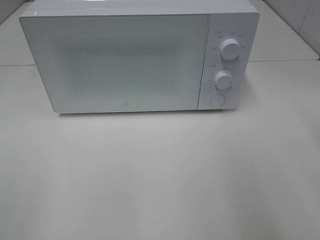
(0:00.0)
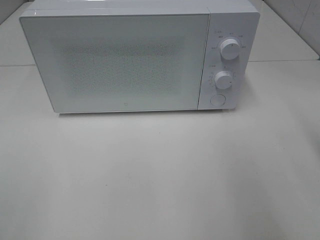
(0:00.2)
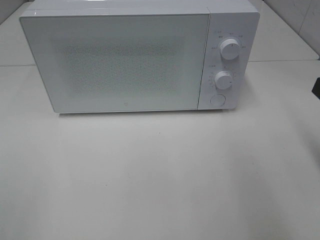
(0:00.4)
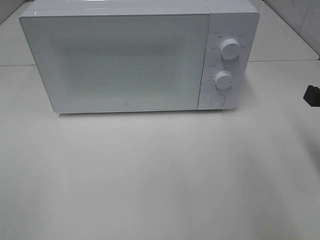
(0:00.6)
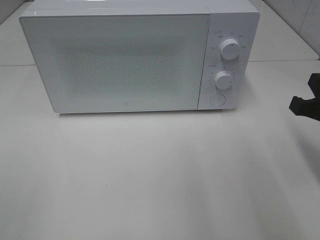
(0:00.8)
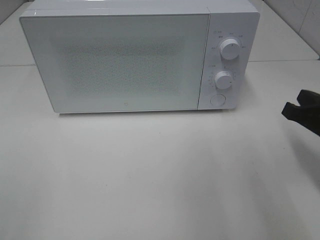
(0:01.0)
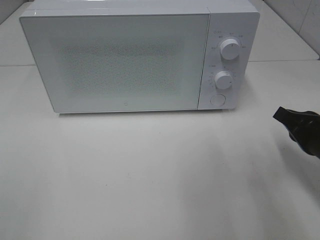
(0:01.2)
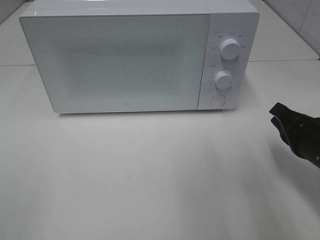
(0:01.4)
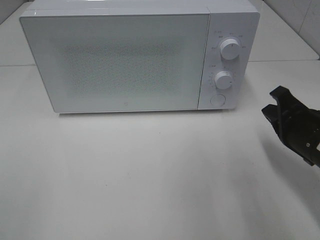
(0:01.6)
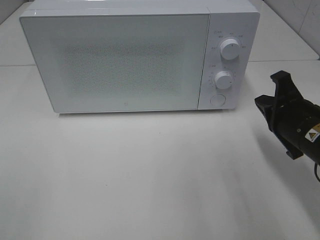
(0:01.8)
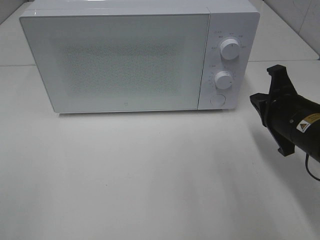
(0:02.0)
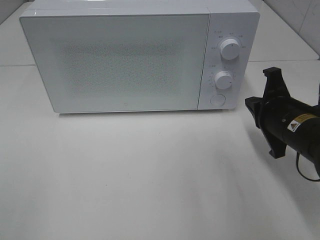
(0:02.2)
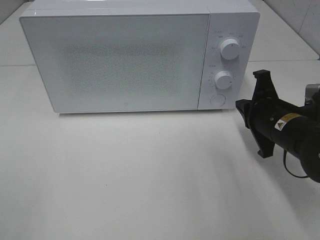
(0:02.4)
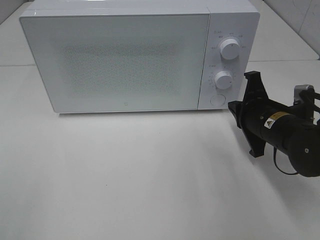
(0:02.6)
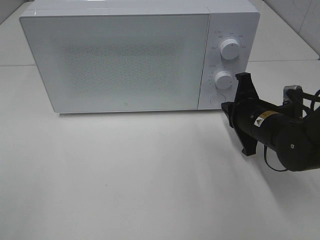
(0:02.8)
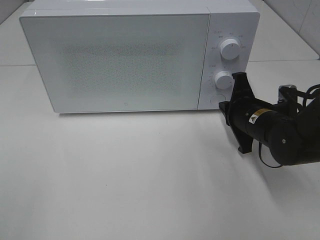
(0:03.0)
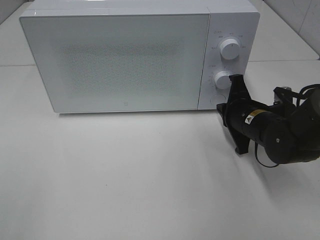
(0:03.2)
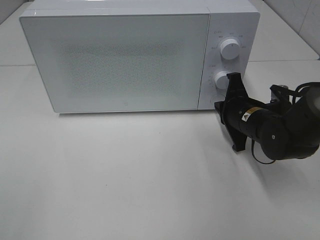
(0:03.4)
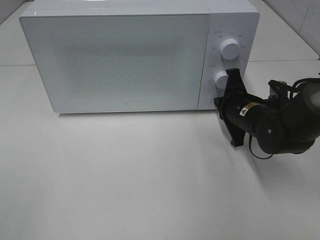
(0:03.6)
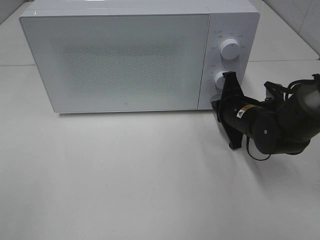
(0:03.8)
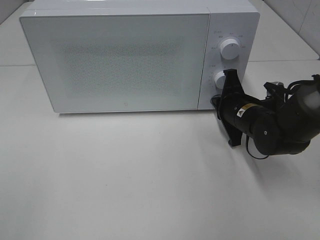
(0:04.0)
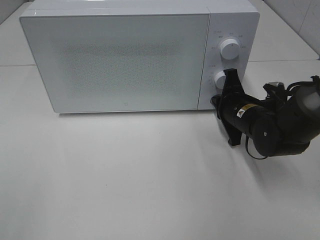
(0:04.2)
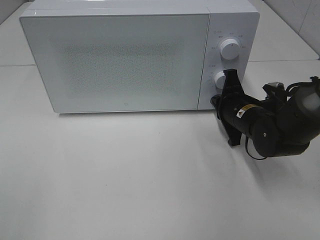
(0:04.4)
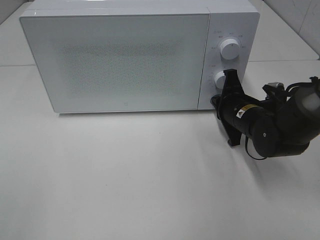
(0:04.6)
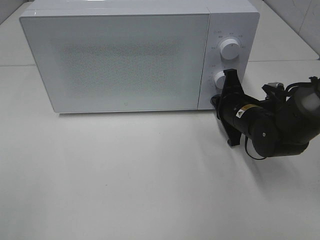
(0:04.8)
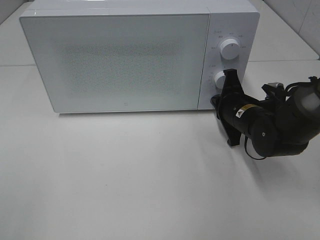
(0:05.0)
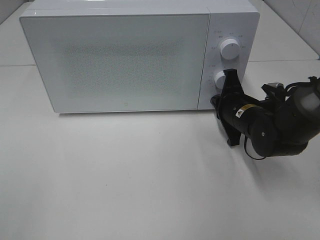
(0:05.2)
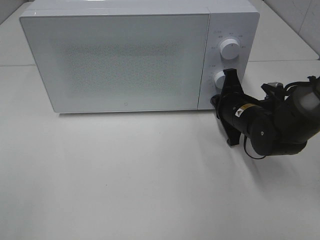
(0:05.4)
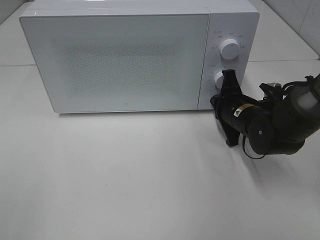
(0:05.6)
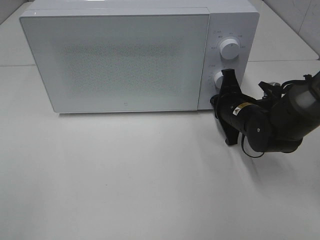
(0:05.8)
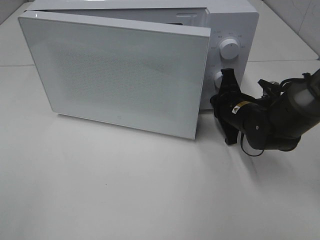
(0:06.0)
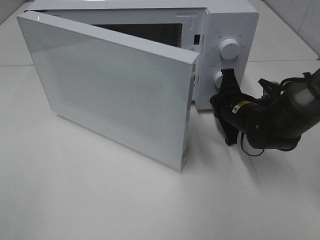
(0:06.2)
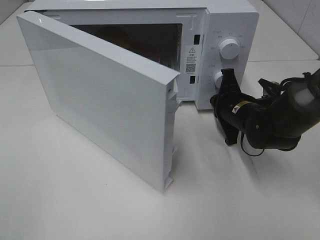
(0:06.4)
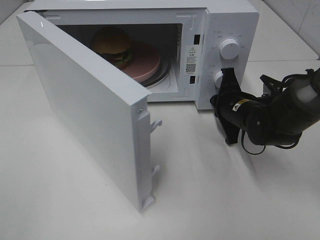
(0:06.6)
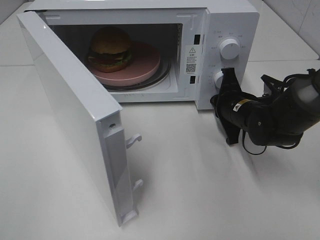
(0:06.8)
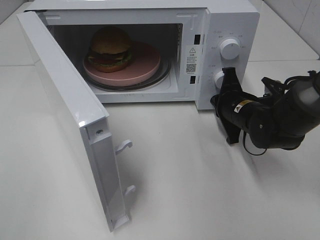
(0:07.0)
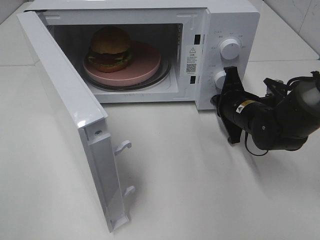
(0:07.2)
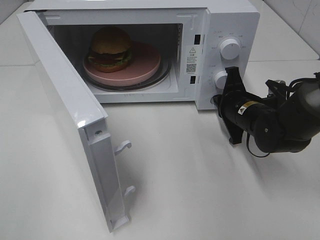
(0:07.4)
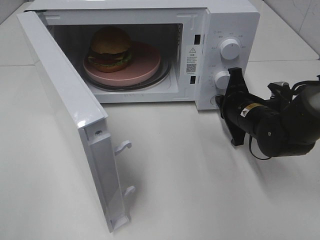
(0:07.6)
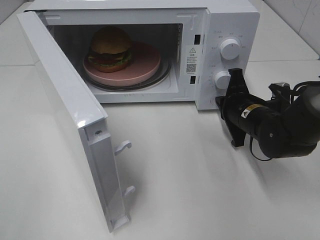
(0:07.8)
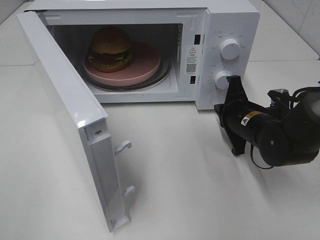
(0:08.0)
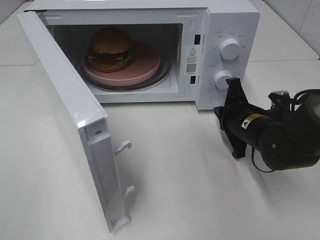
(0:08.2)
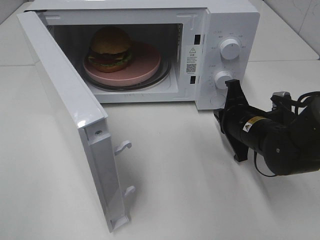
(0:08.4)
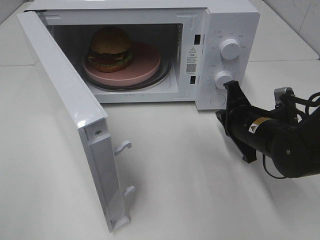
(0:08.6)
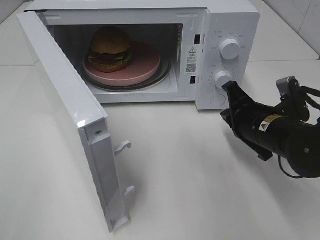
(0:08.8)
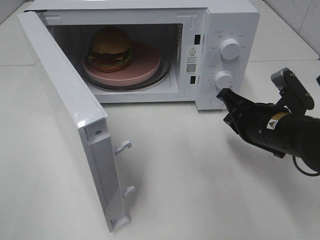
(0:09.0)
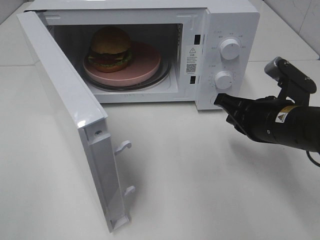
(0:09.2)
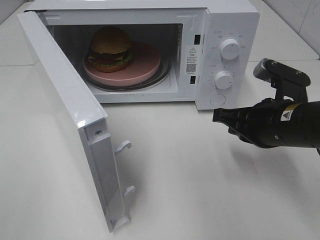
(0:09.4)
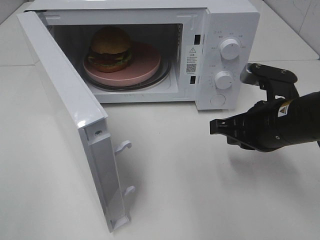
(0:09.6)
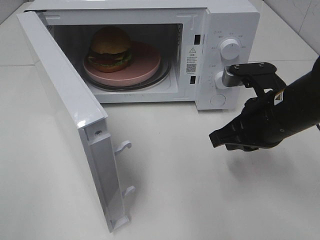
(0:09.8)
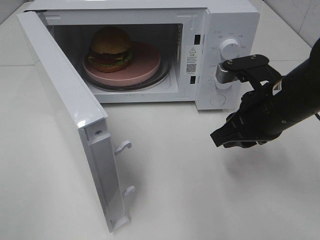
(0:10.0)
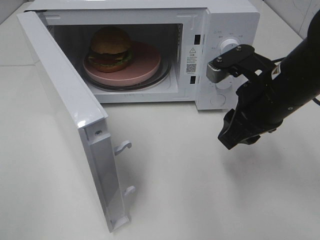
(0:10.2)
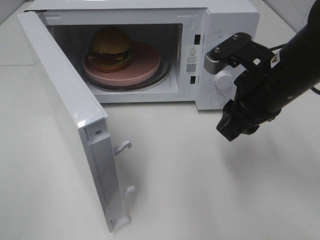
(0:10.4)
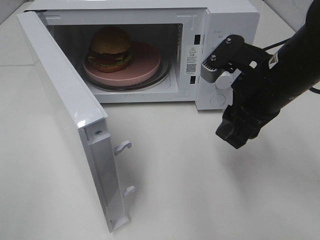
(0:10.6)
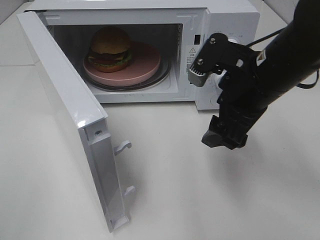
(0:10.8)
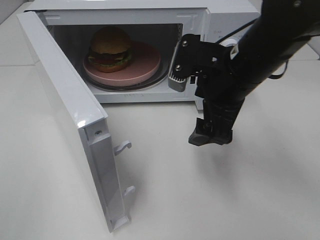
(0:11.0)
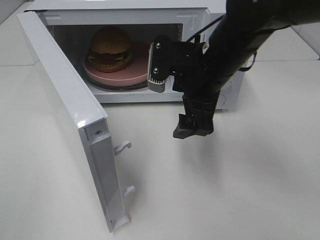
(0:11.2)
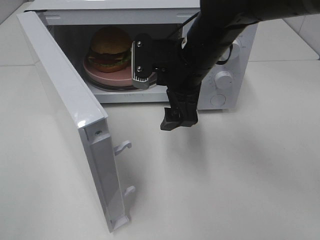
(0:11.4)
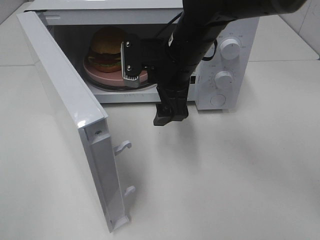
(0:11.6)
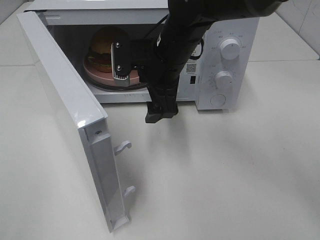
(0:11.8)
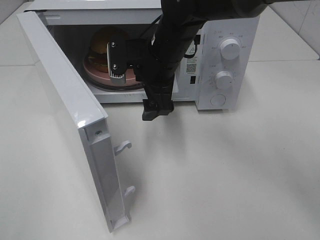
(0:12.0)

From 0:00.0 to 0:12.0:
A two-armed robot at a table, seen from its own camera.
Task of the whole recording: Heat the burger.
Step, from 0:00.0 to 0:07.8: Right hand: press the switch.
From 0:00.0 to 0:01.6: The right gripper travels downward and forward by roughly 15 cm.
From 0:01.6 to 0:03.0: The right gripper moves forward and to the left, roughly 10 cm.
From 0:03.0 to 0:06.0: There are only small adjustments of the grippers.
From 0:07.6 to 0:09.0: The right gripper goes roughly 10 cm backward.
From 0:09.0 to 0:10.4: The right gripper heads upward, covering approximately 10 cm, and opens up.
From 0:10.4 to 0:12.0: The right gripper is displaced to the left and forward by approximately 20 cm, and opens.

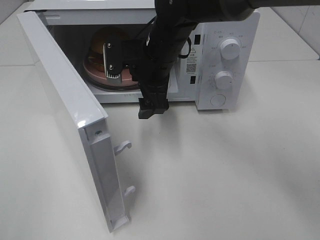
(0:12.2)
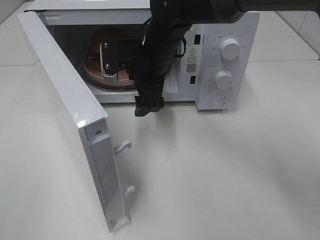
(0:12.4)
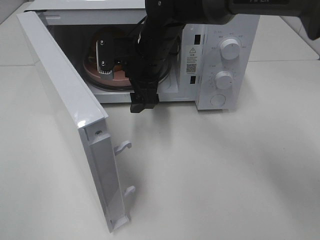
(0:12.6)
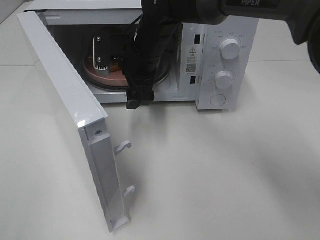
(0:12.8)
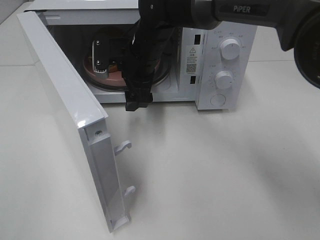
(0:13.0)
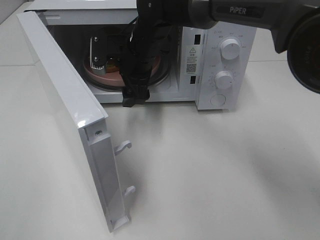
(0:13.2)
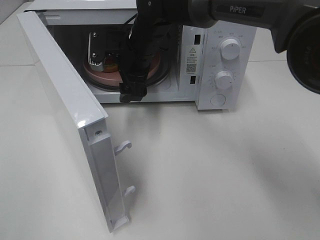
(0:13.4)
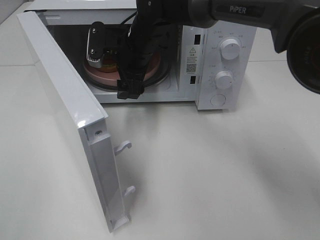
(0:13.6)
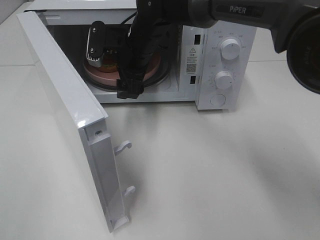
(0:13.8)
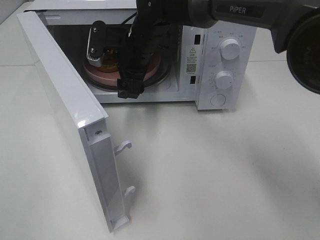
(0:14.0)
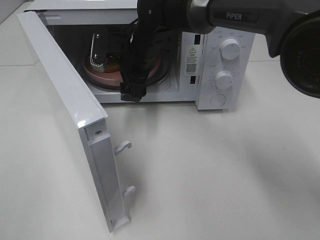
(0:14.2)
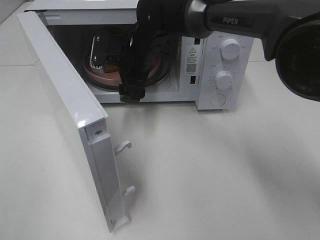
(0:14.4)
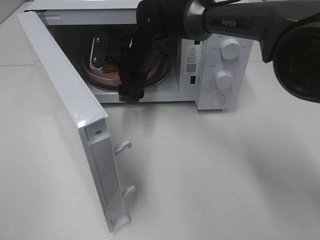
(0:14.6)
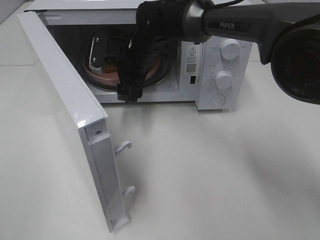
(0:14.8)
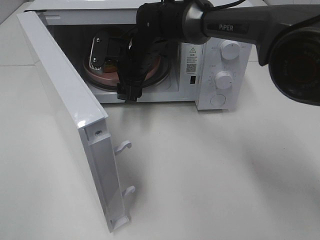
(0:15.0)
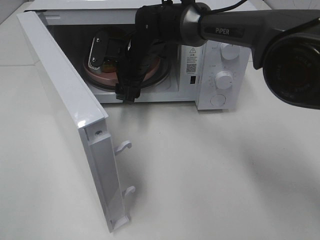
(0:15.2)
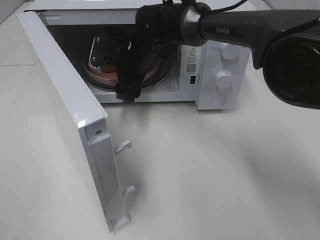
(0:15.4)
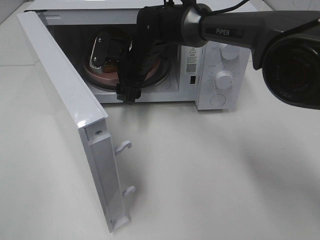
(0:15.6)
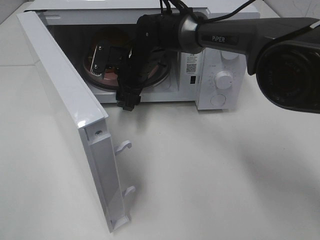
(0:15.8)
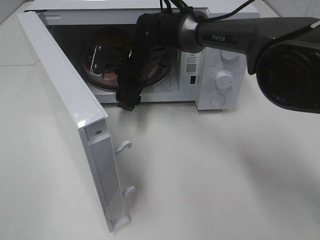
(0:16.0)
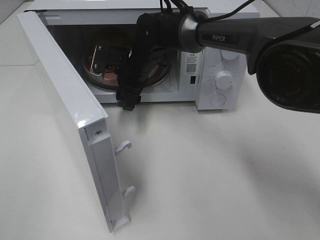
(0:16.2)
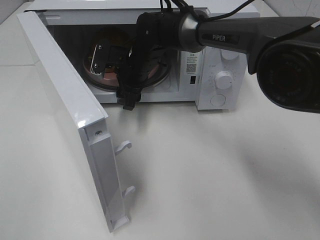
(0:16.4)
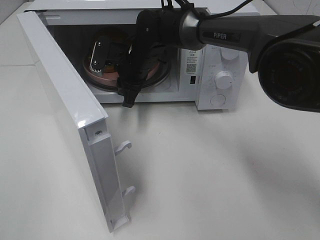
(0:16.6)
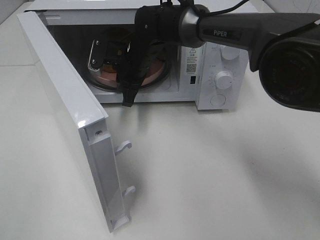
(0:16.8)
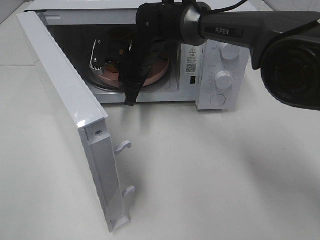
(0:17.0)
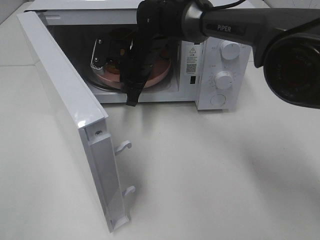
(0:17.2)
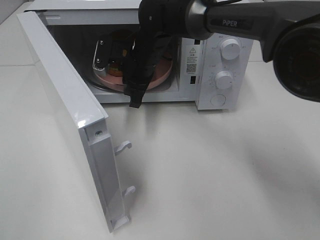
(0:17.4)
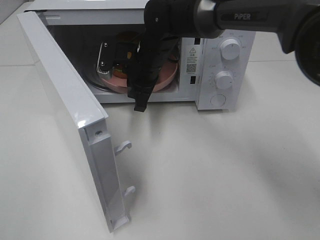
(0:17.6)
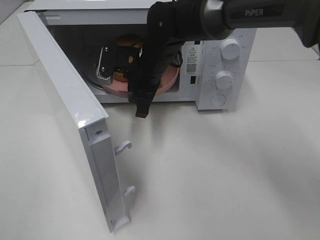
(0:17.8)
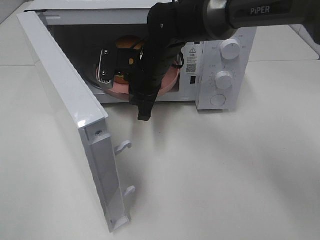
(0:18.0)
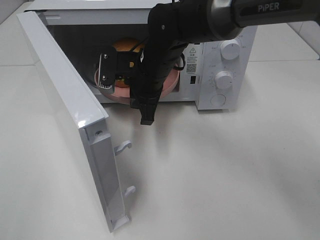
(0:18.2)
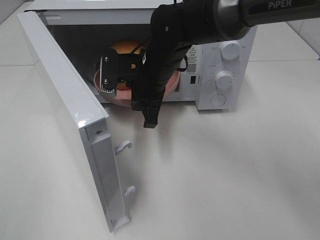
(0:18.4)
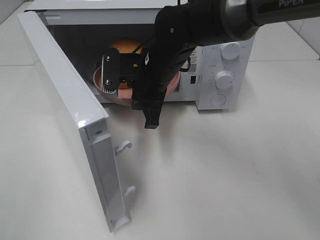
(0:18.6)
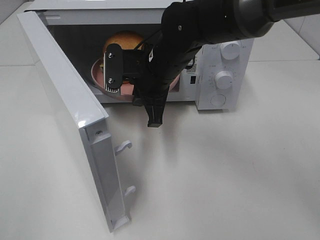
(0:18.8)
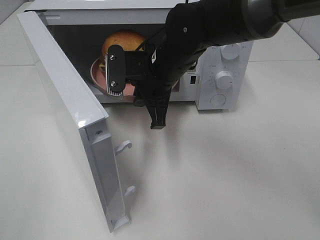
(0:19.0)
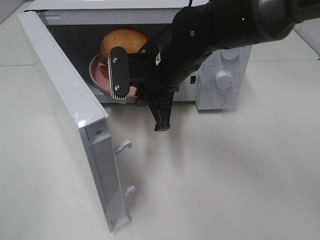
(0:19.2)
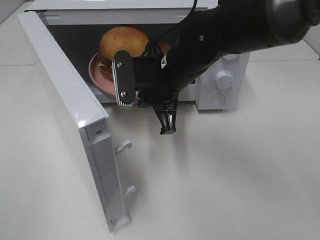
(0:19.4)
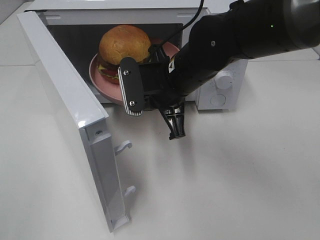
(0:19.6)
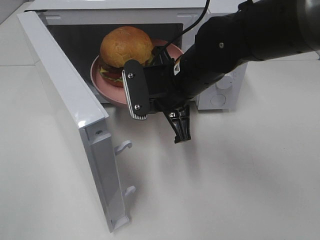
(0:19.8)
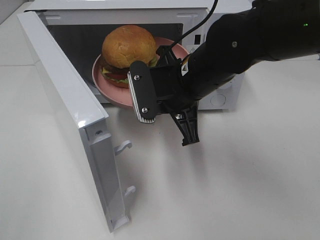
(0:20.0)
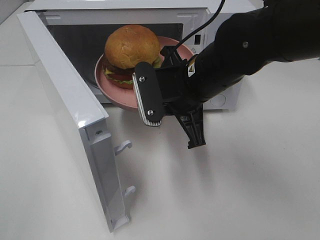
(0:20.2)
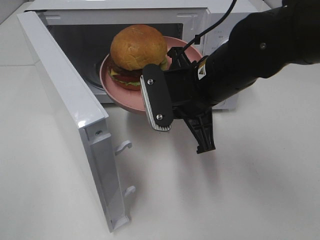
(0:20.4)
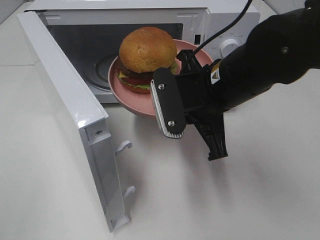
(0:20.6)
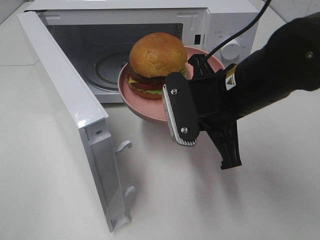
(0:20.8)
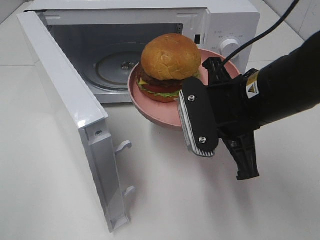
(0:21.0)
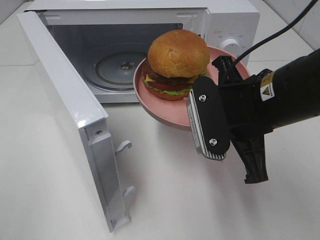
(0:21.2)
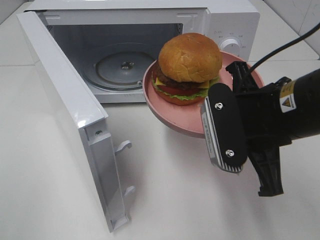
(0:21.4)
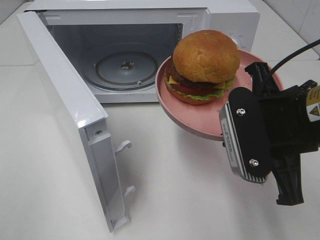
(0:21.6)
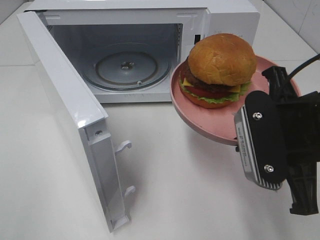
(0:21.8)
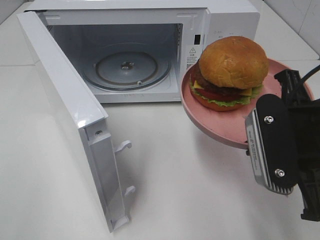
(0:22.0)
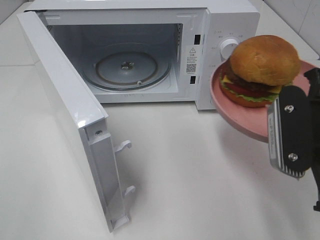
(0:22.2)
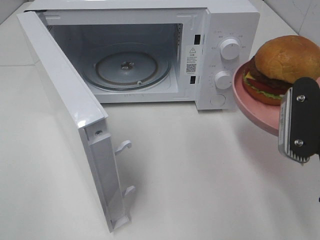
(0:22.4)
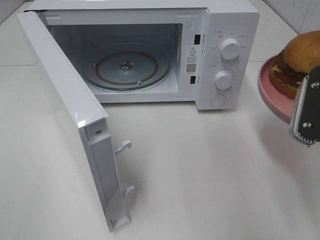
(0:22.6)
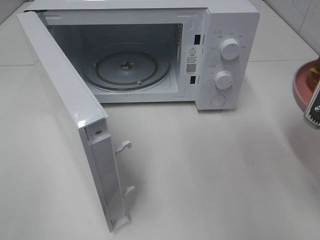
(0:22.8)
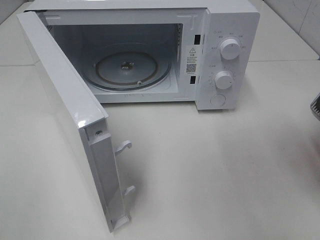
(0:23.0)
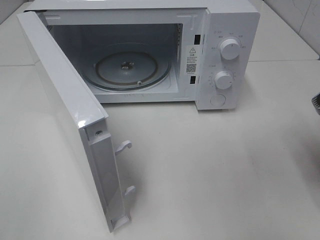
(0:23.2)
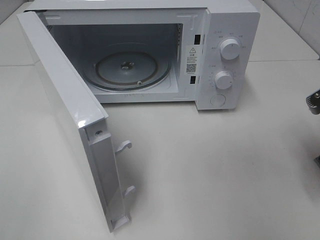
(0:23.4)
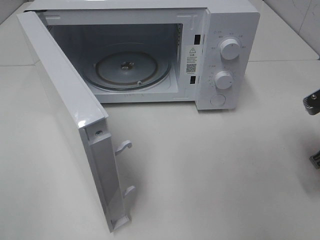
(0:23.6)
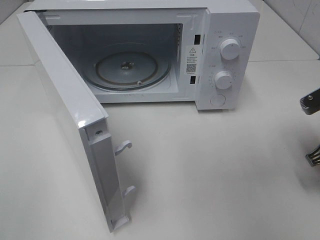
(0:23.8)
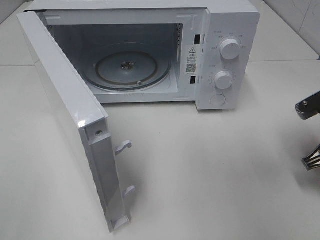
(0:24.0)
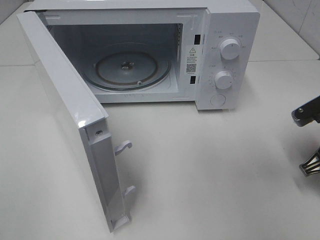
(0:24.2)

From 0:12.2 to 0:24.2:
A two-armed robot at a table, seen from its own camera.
Task of the whole recording: Heat the burger.
Step, from 0:12.2 to 0:16.8: Right hand: grab the plate with the hamburger.
From 0:12.2 to 0:13.8: The right gripper ends up roughly 5 cm from where it was.
From 0:13.8 to 0:15.2: The grippers move only a little.
From 0:15.2 to 0:16.6: The right gripper closes up.
From 0:16.6 to 0:18.2: The right gripper shifts about 5 cm backward.
From 0:18.2 to 0:19.8: The right gripper travels backward by about 5 cm.
From 0:19.8 to 0:21.2: The right gripper goes about 10 cm backward and to the right.
From 0:21.2 to 0:22.6: The right gripper goes roughly 10 cm to the right.
From 0:22.6 to 0:24.2: The right gripper is displaced downward, forward and to the right by approximately 15 cm.
